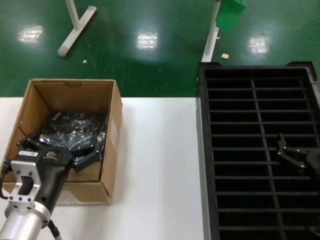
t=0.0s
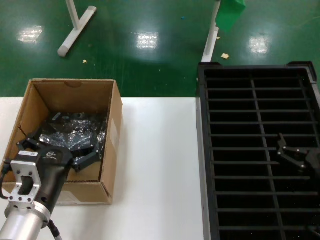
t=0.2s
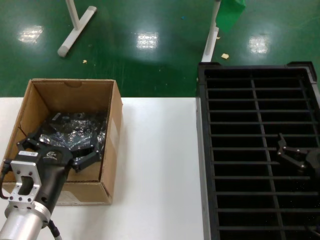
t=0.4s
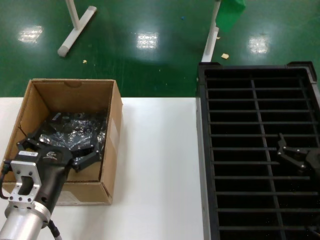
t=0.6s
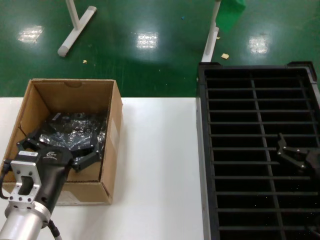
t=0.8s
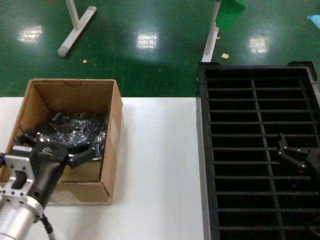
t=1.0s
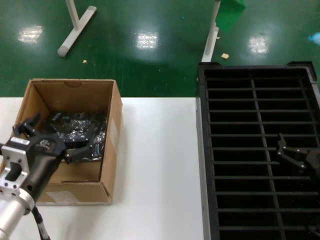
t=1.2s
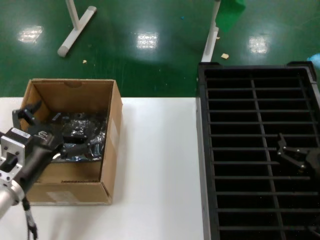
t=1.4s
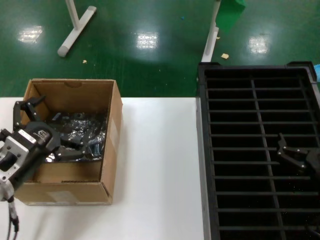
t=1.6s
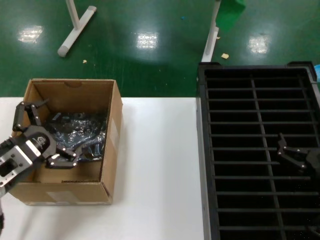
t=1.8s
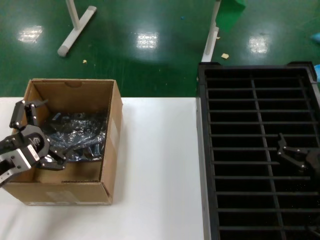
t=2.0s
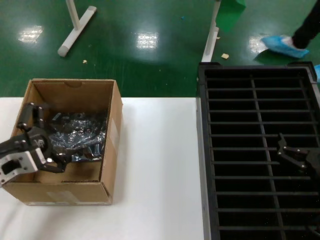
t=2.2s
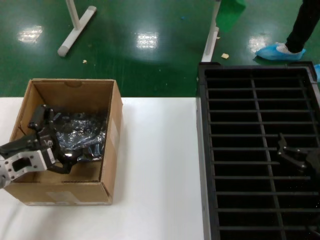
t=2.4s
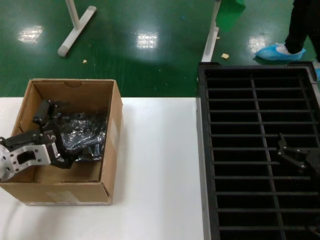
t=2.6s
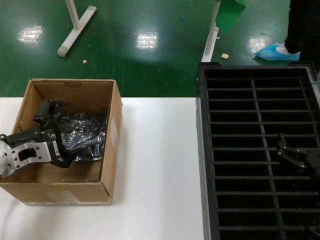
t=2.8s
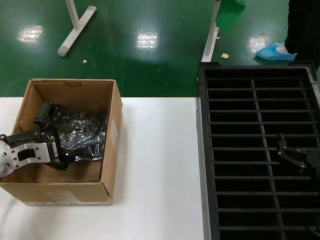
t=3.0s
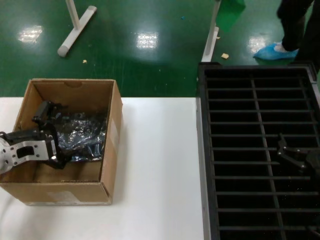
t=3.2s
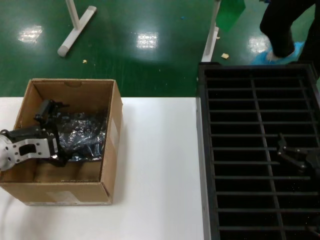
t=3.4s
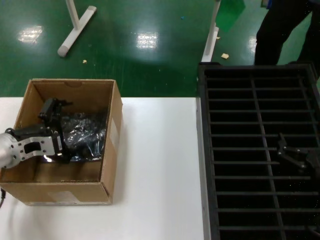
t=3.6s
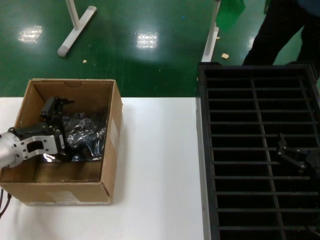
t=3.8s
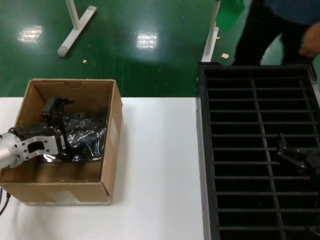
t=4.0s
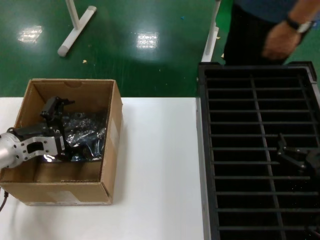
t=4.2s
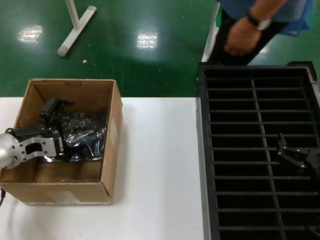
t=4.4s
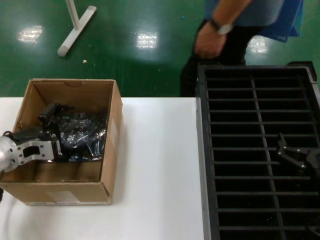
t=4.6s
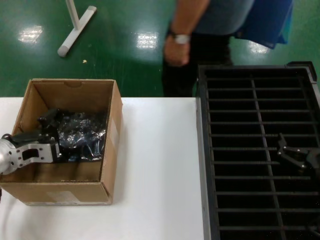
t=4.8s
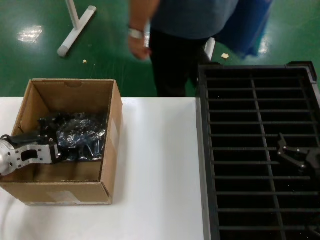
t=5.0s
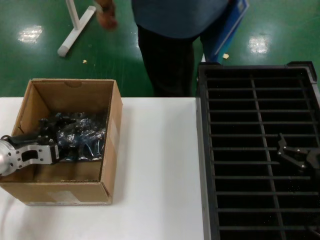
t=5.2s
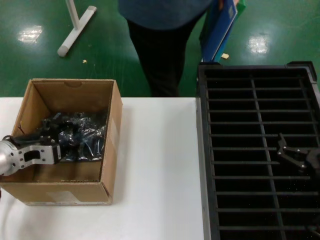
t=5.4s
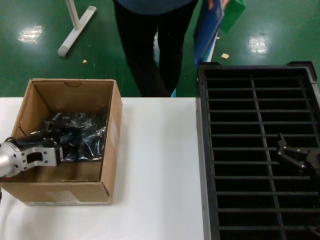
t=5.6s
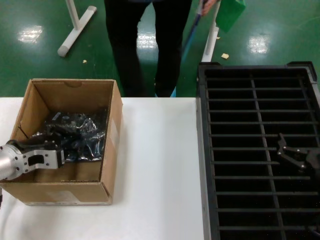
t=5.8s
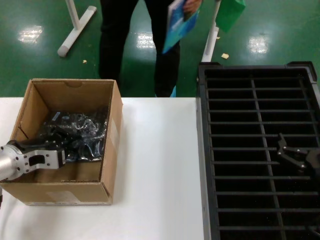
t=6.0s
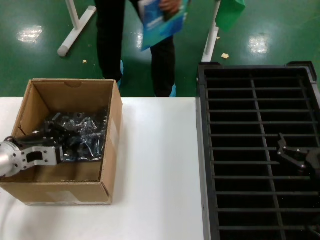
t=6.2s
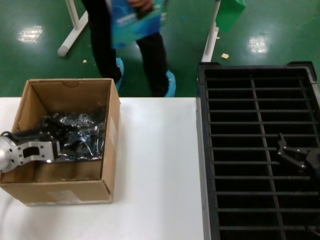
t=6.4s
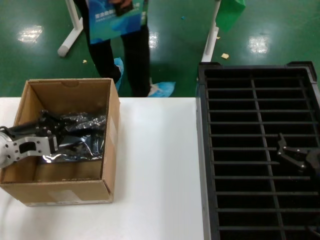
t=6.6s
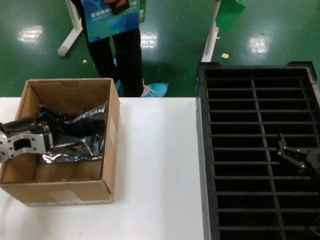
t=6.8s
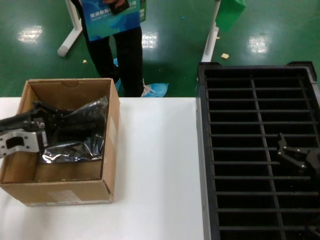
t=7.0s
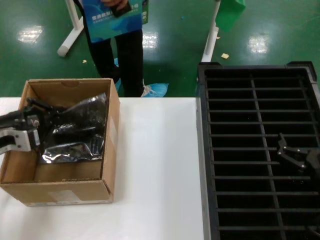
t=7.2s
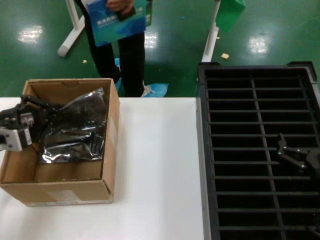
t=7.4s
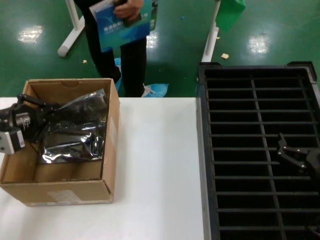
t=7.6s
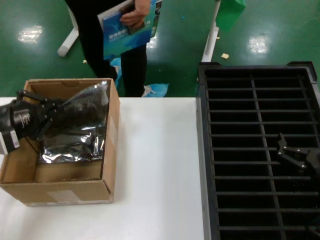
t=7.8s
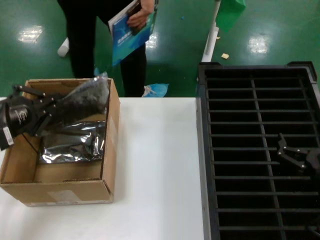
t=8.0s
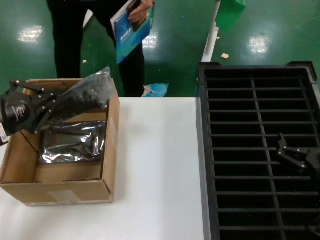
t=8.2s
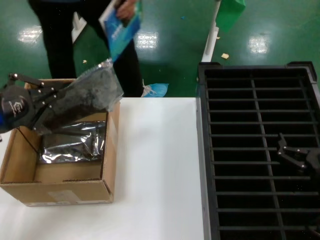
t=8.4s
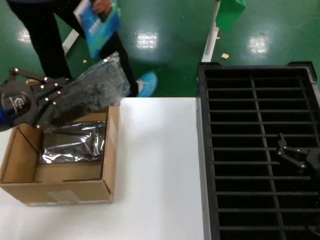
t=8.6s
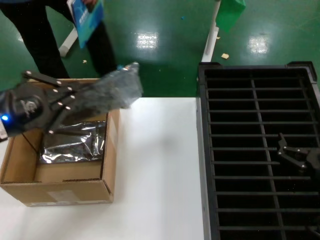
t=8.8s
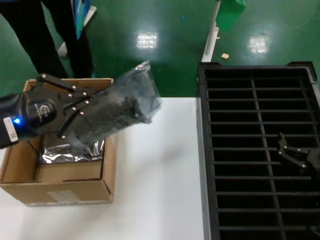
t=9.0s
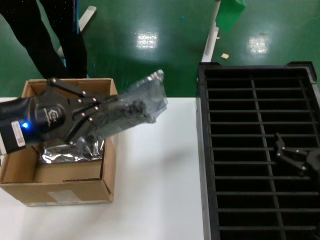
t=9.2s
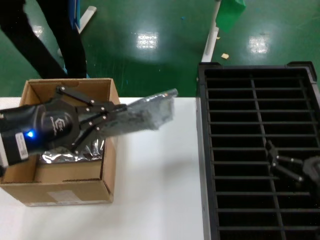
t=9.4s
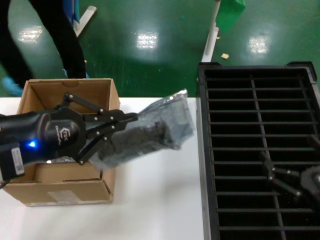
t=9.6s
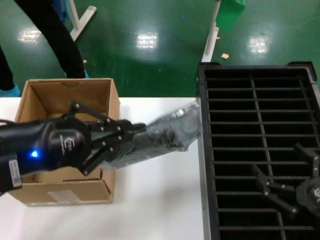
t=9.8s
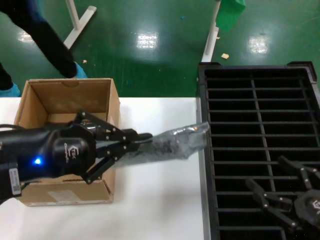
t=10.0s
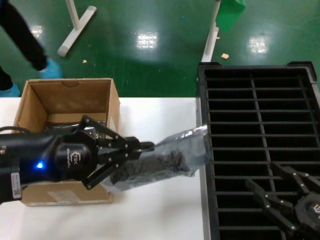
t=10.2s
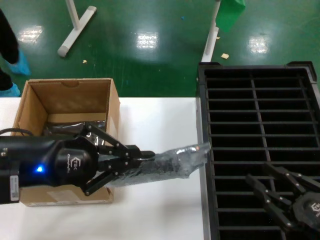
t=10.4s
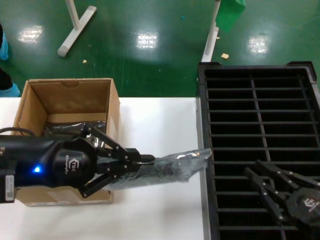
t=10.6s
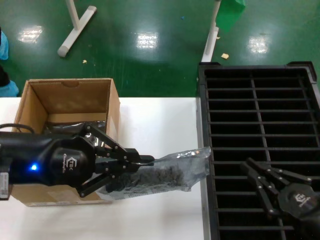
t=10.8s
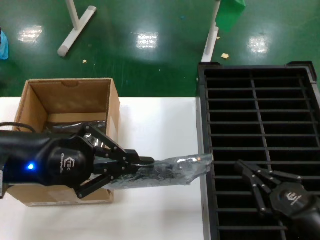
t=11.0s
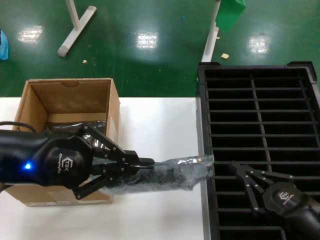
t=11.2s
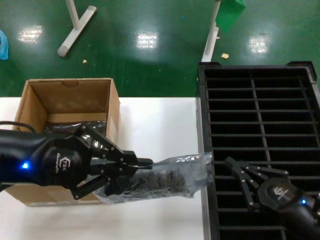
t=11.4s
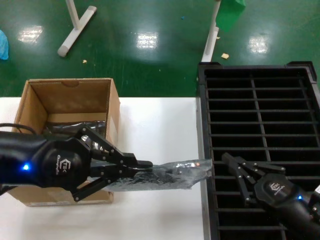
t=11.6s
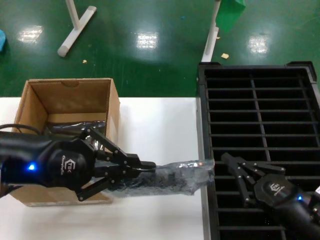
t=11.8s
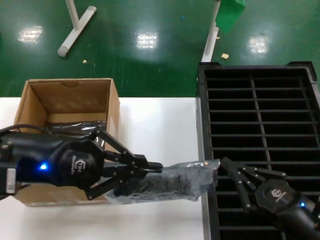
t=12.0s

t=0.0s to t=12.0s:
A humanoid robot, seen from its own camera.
Task of the whole recording: take out graphics card from box remove packaging put into black container.
Step, t=0.0s to t=6.0s: Grasp the bag.
Step, t=6.2s to t=10.6s: Lift the bag.
t=0.0s to t=1.6s: The left hand travels to the left by roughly 10 cm.
t=1.6s to t=3.0s: The left hand is displaced forward by approximately 10 cm.
t=3.0s to t=6.0s: The hands move only a little.
t=6.0s to t=7.6s: The left hand heads upward and backward, covering some 10 cm.
t=7.6s to t=9.0s: The left hand heads upward, backward and to the right, covering some 15 cm.
t=9.0s to t=10.4s: The right hand goes approximately 5 cm backward.
t=10.4s to t=12.0s: The right hand is displaced to the left by roughly 5 cm.

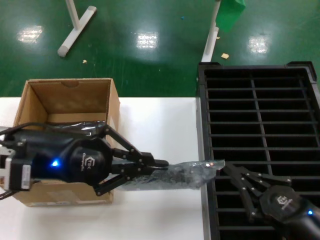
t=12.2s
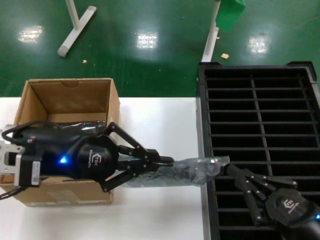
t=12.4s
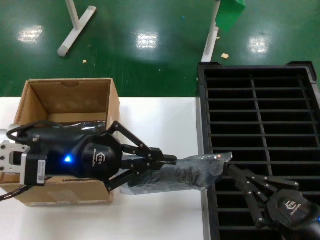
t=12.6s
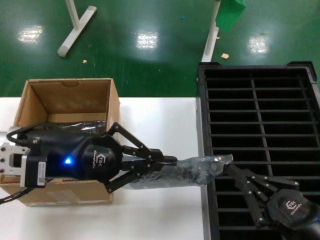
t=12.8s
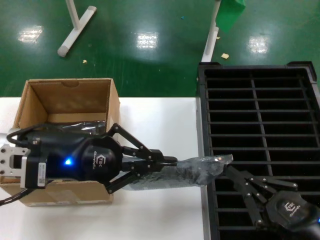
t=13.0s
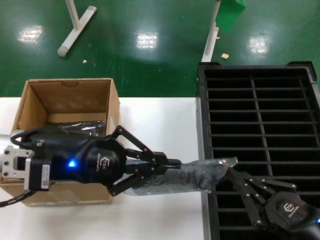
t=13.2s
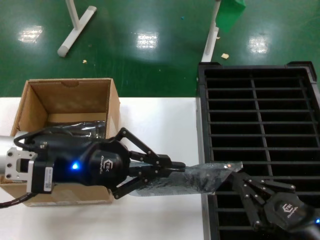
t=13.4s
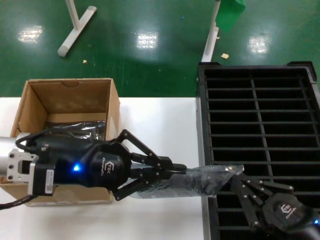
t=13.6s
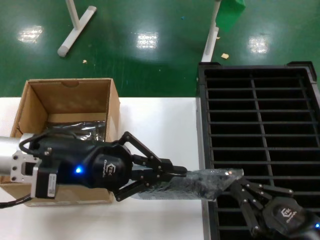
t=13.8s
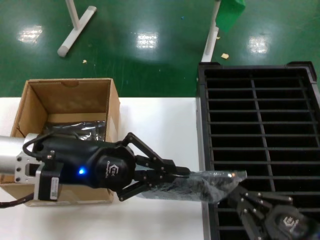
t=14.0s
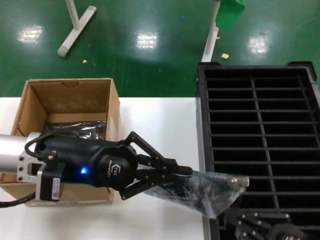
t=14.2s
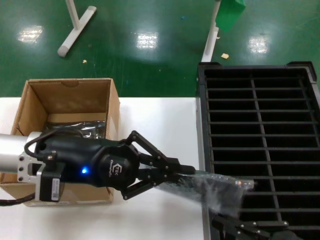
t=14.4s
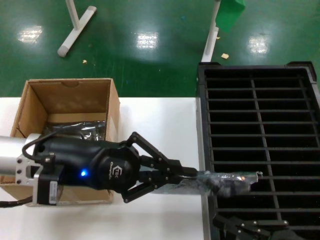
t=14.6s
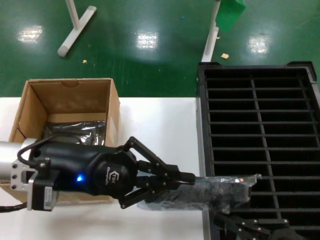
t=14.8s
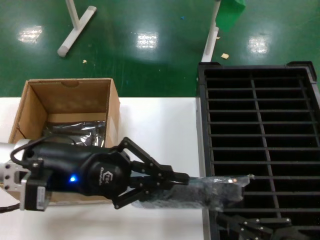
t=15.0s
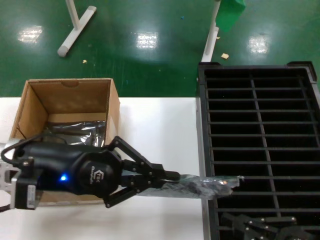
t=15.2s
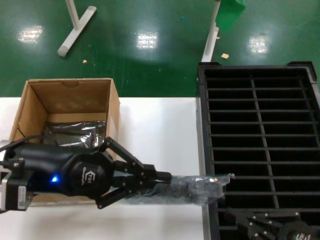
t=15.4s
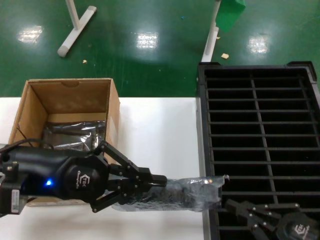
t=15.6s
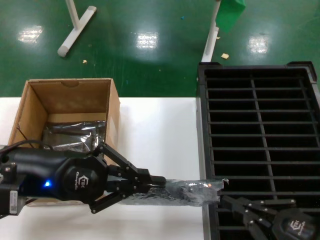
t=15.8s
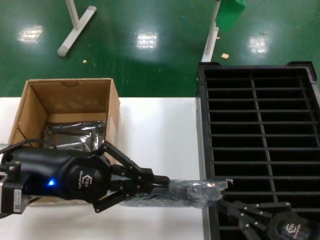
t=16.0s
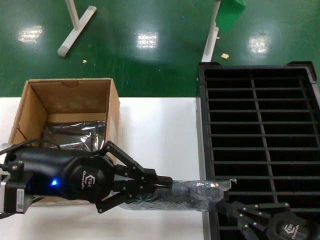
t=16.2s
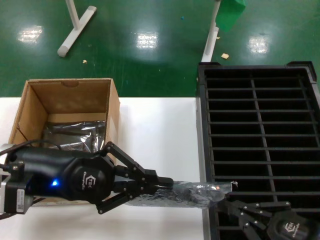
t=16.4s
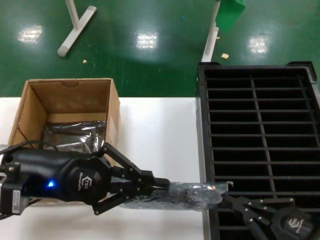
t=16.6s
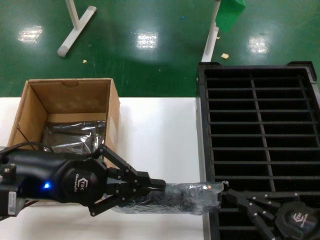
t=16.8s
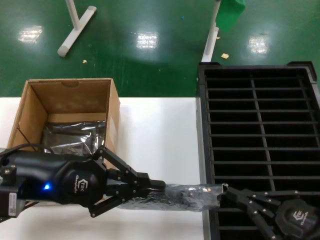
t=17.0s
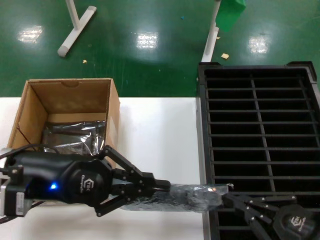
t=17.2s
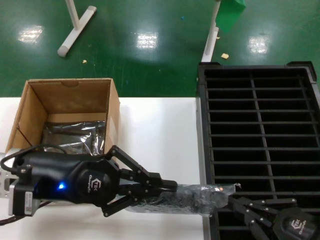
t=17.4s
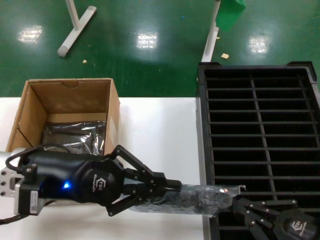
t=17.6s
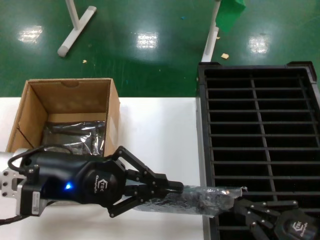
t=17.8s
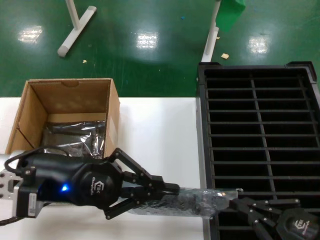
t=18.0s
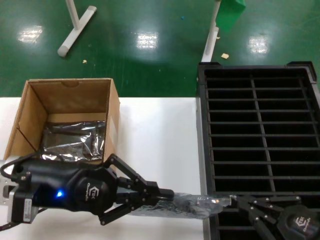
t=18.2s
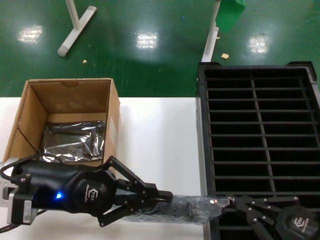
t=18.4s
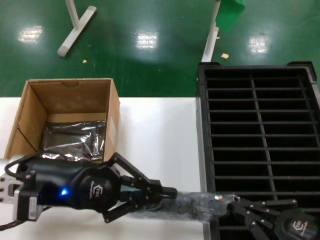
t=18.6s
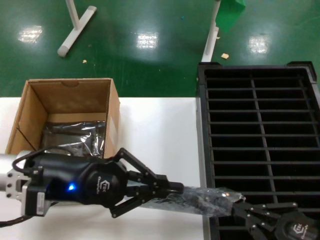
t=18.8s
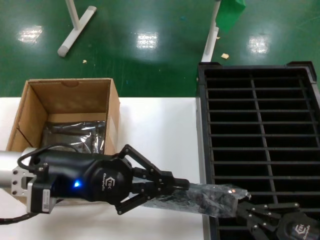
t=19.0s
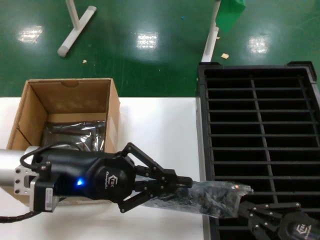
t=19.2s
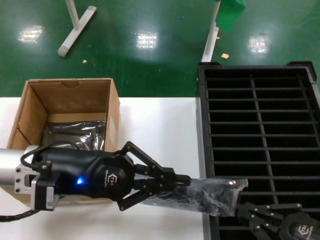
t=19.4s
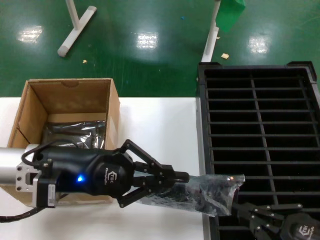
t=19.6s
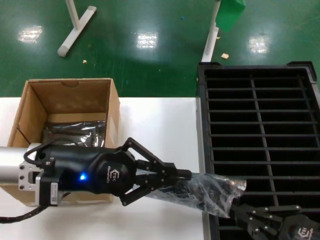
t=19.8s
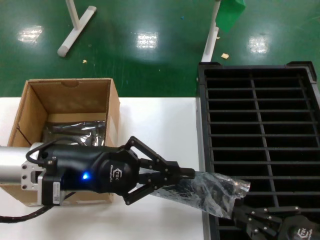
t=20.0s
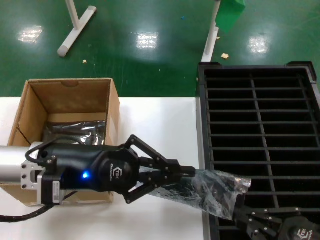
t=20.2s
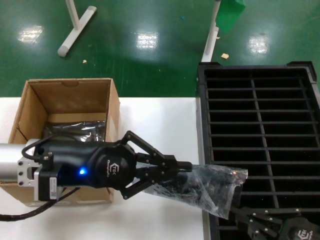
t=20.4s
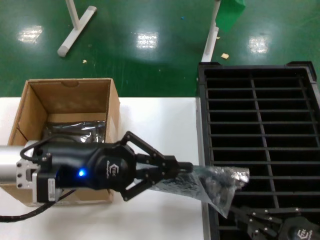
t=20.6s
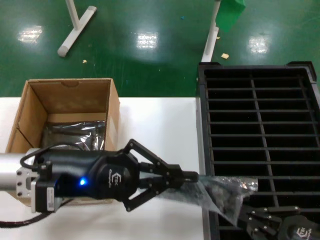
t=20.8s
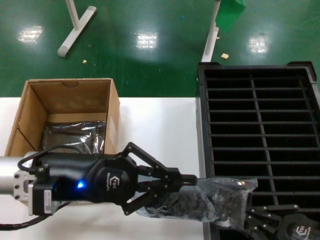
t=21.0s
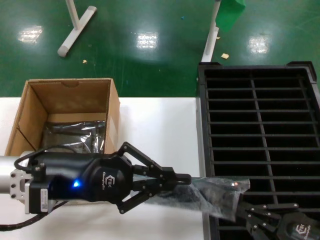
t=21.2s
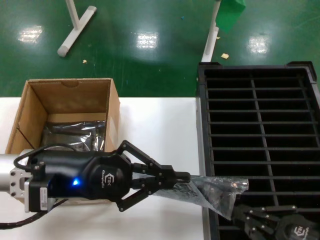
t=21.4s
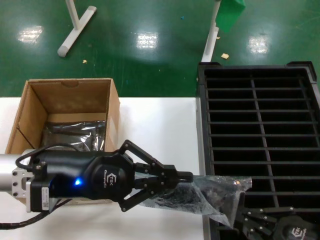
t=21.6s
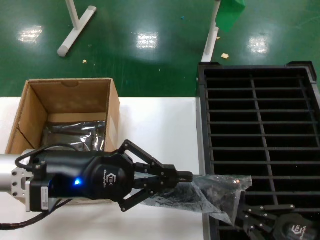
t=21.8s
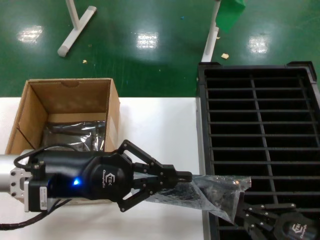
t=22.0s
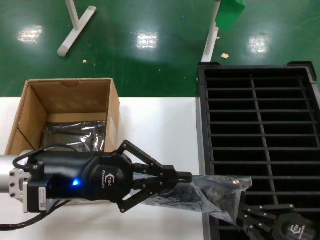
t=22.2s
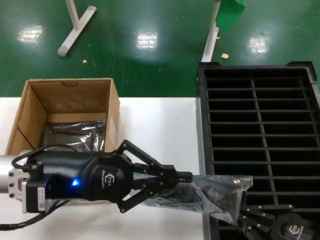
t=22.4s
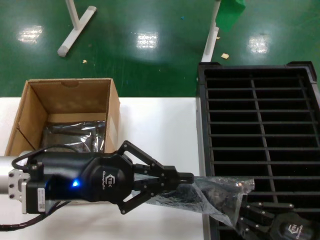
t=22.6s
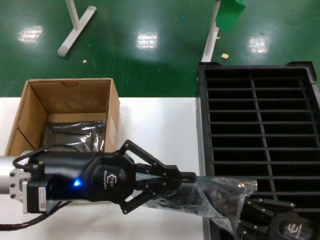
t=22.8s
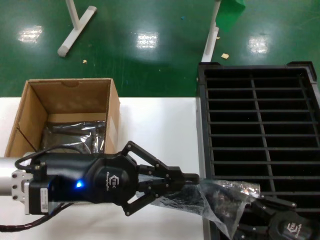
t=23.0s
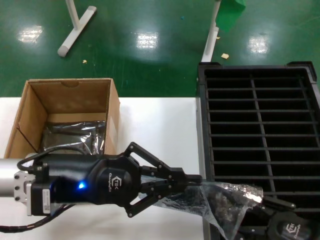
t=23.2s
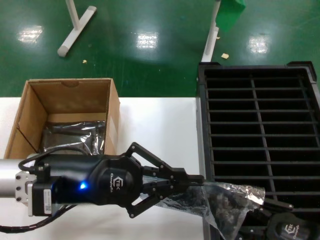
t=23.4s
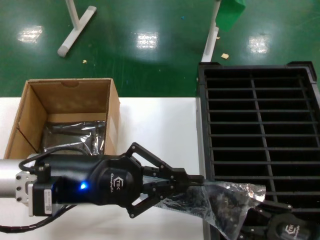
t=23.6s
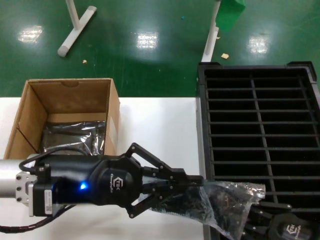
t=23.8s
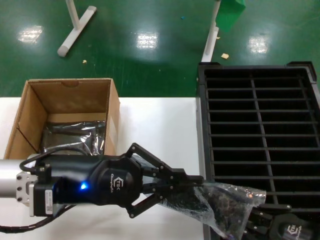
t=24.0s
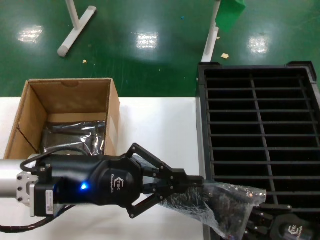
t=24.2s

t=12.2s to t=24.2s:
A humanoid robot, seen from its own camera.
Task of the whole recording: take out graphics card from box remove packaging put into black container.
t=12.2s to t=18.2s: The hands make only small movements.
t=19.8s to t=21.2s: The hands stay close to where they were, moving slightly.
t=21.2s to t=22.6s: The two hands keep their place.
t=22.6s to t=24.2s: The hands move only a little.
